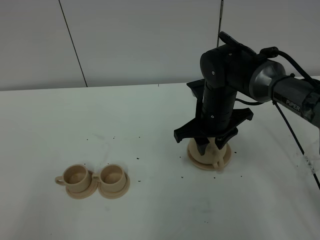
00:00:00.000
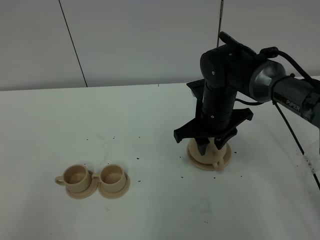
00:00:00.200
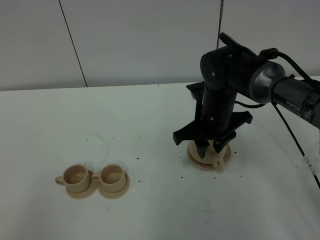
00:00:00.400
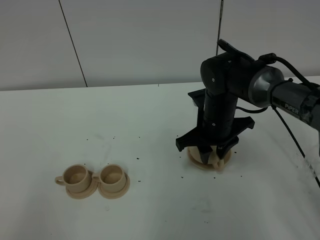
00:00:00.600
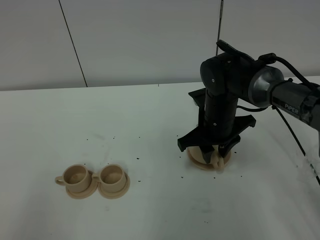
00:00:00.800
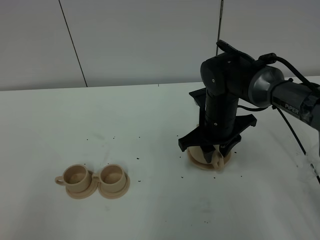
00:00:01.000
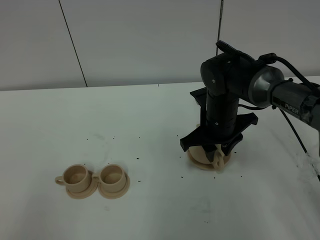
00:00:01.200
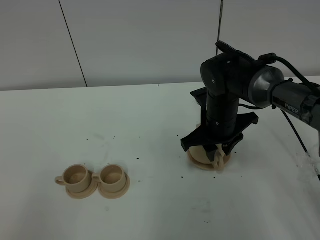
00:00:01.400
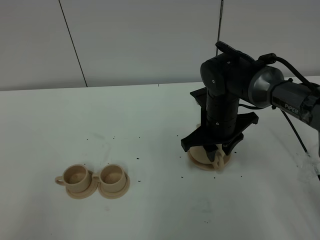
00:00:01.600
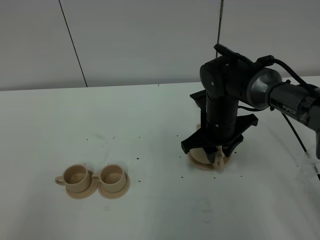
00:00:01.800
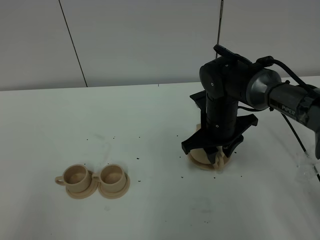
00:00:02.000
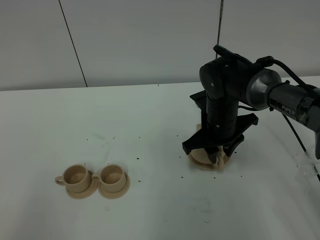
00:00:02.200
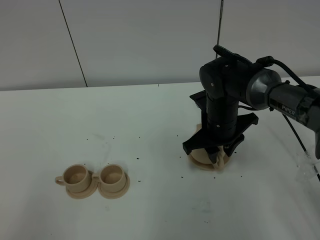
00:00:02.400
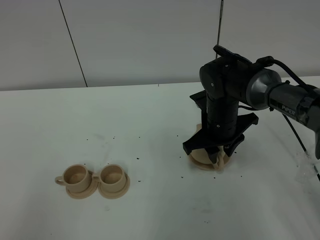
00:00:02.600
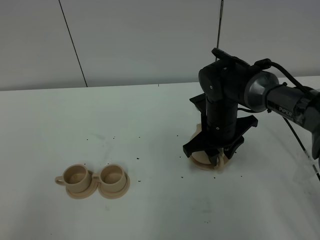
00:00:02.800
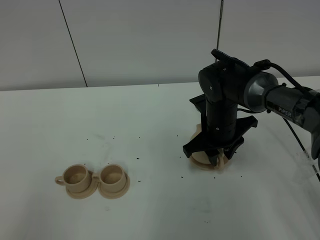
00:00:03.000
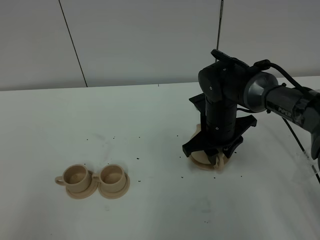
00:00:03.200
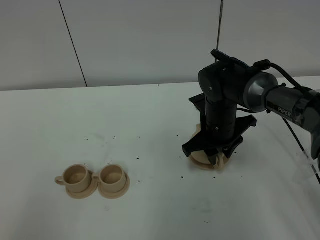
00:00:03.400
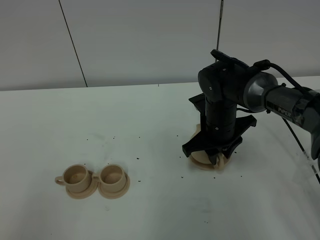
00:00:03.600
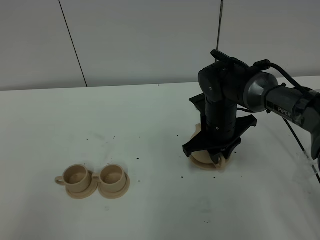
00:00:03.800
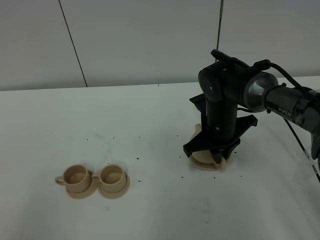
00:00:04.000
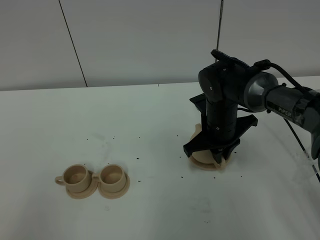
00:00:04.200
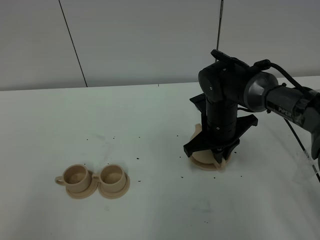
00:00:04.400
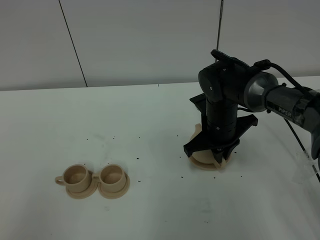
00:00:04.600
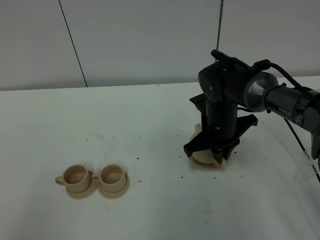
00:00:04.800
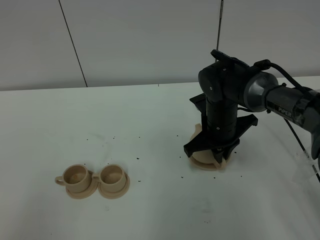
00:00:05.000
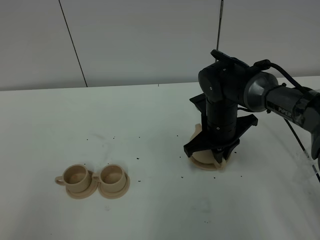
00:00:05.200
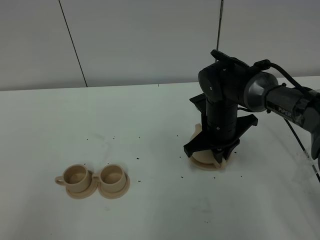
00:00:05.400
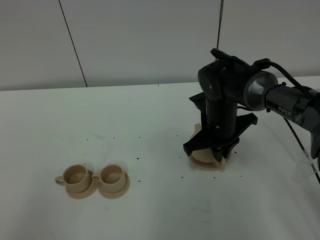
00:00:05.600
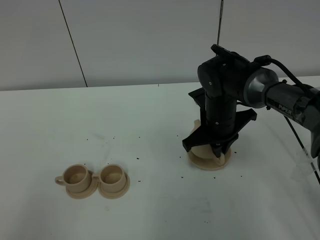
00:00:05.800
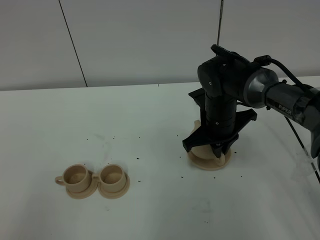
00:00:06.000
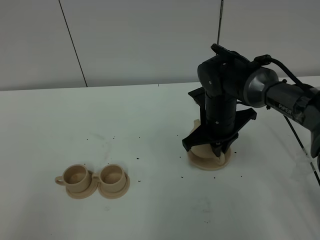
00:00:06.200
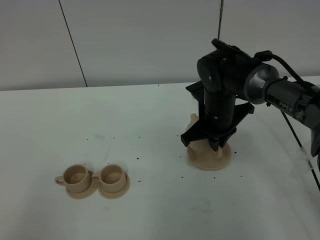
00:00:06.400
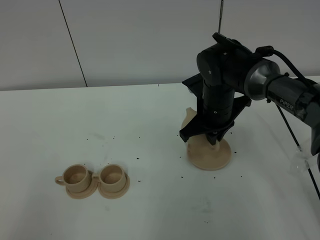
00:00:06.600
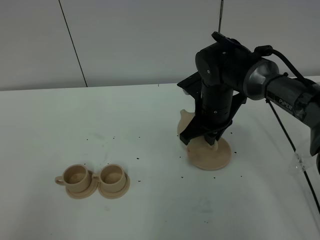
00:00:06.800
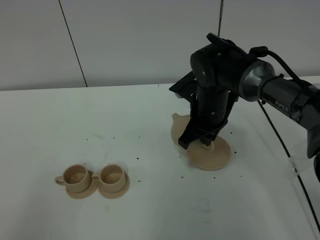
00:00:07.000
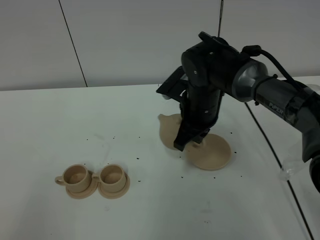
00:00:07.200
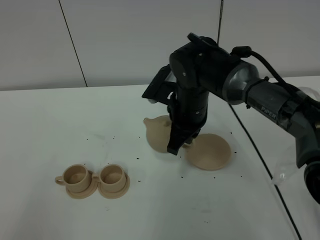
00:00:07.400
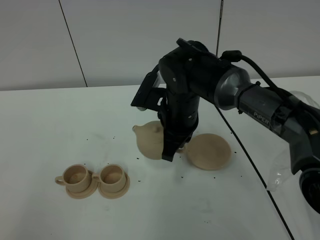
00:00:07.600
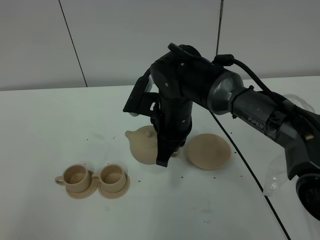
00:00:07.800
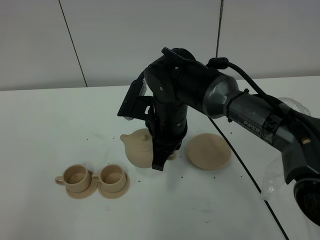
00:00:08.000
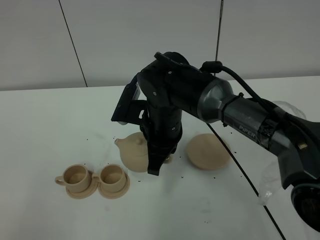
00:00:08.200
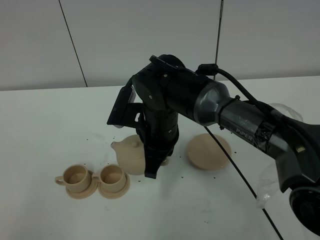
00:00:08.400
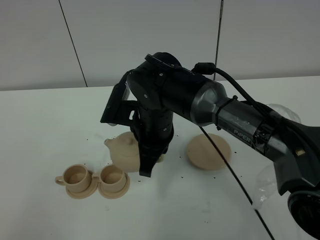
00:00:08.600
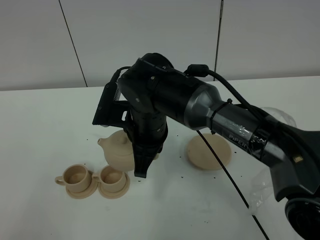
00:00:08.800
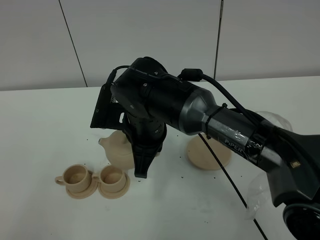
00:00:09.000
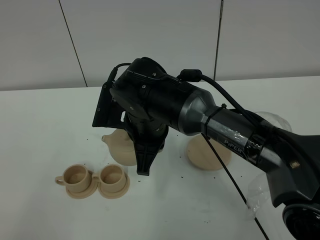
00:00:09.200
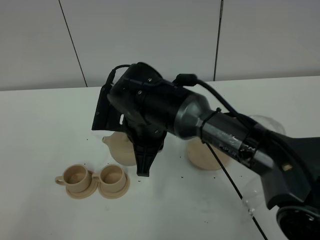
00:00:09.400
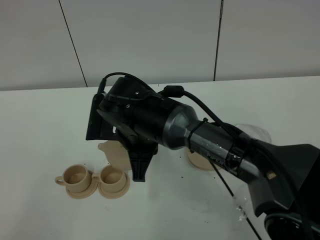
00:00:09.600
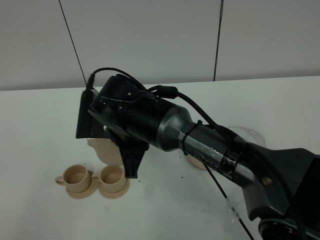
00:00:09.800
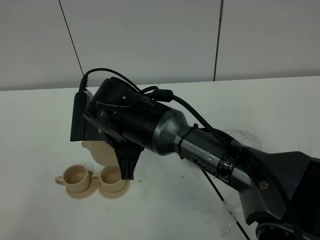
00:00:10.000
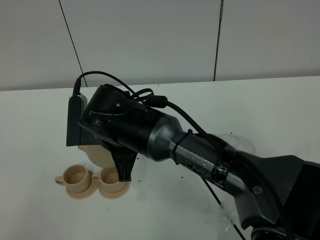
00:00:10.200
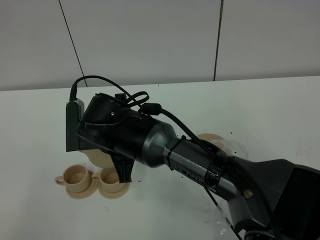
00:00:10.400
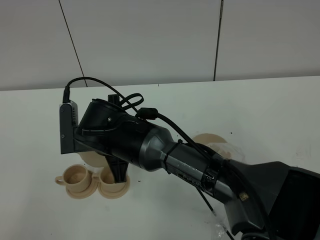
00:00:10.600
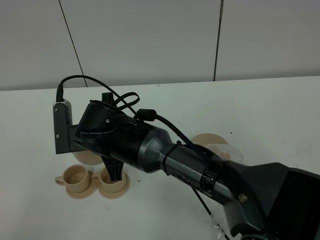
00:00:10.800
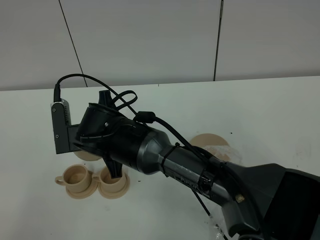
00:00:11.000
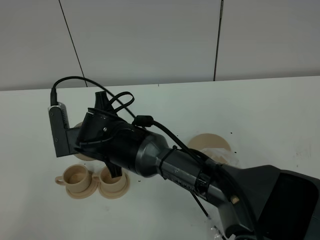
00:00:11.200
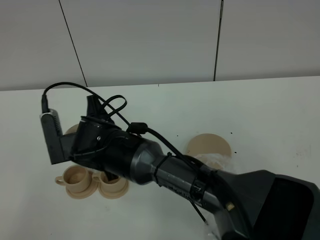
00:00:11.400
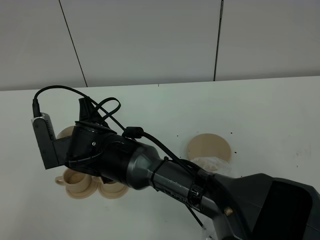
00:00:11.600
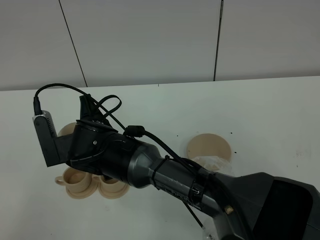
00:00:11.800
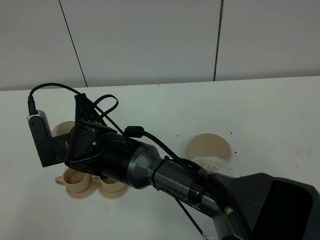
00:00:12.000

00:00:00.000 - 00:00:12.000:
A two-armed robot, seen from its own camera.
Task of the whole recording: grasp the brown teapot and pour the tea into the two brown teacups one by one, put the brown teapot back in its original place.
Step, 00:00:00.000 - 00:00:06.200: Pick up the teapot with the right gripper.
00:00:00.000 - 00:00:03.000: The grippers make only small movements.
00:00:03.000 - 00:00:04.400: The right gripper closes up.
00:00:04.400 - 00:00:06.000: Both grippers stay put.
00:00:06.000 - 00:00:07.600: The right gripper shifts some 10 cm to the left.
00:00:07.600 - 00:00:09.000: The right gripper moves to the left, about 5 cm.
00:00:09.000 - 00:00:10.400: The right gripper is displaced to the left by about 5 cm.

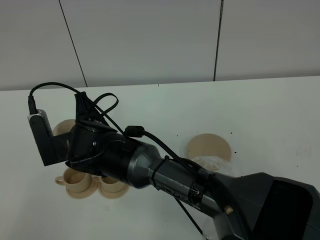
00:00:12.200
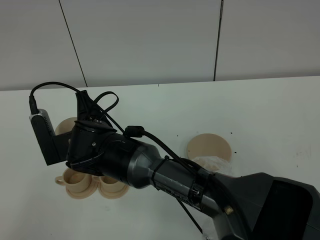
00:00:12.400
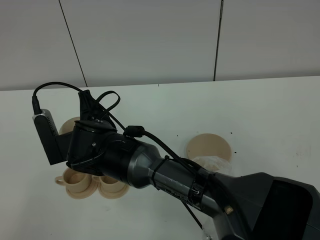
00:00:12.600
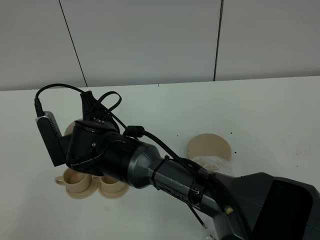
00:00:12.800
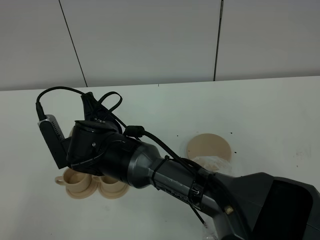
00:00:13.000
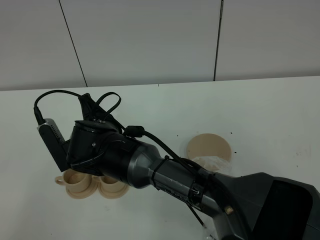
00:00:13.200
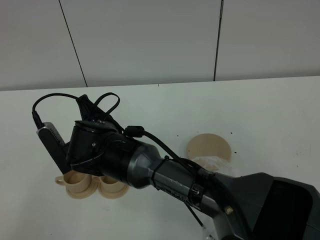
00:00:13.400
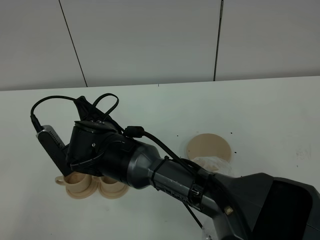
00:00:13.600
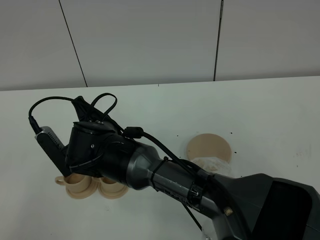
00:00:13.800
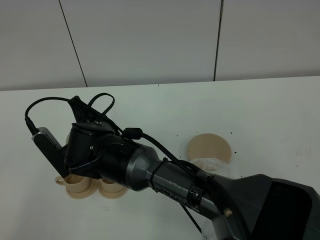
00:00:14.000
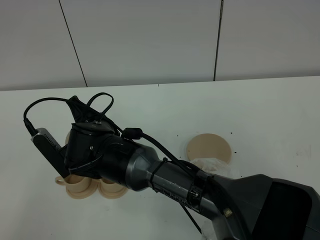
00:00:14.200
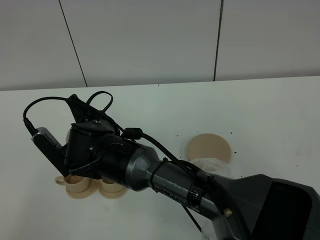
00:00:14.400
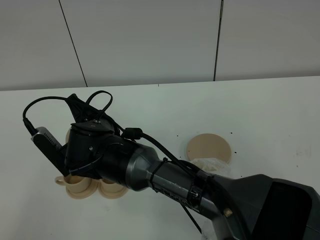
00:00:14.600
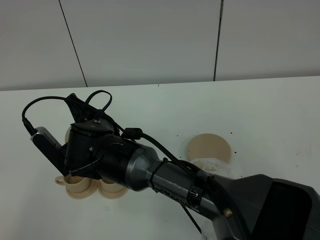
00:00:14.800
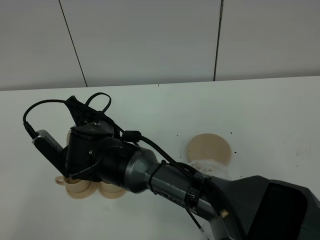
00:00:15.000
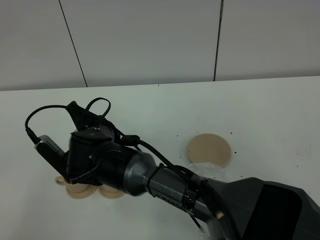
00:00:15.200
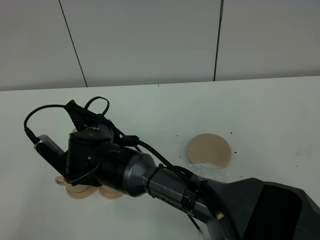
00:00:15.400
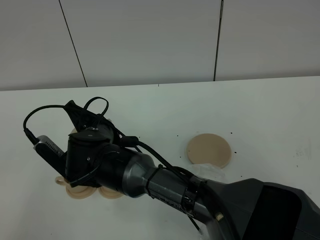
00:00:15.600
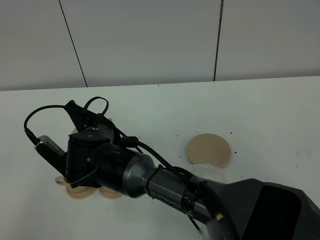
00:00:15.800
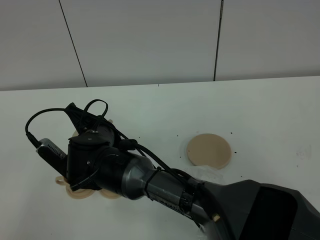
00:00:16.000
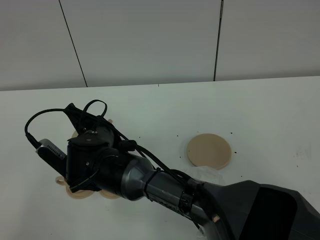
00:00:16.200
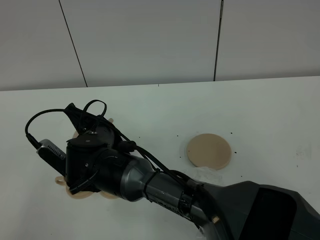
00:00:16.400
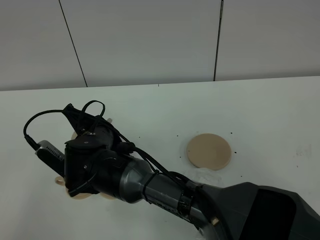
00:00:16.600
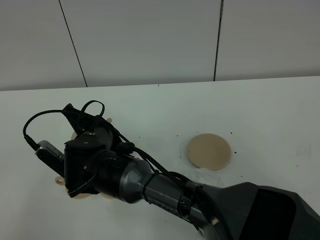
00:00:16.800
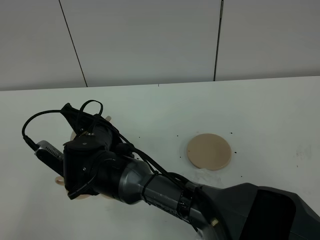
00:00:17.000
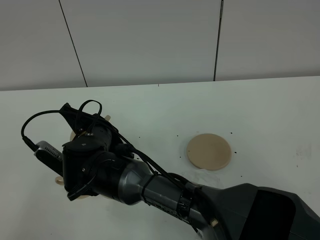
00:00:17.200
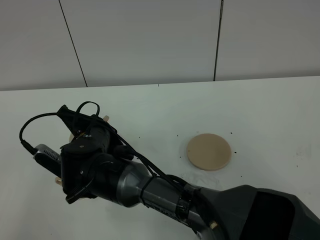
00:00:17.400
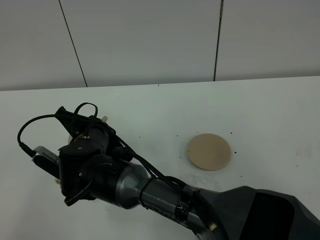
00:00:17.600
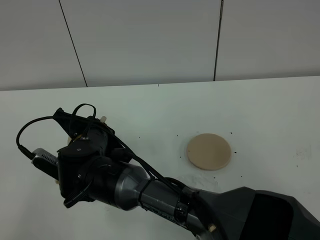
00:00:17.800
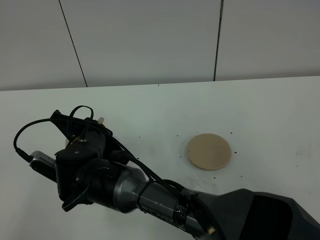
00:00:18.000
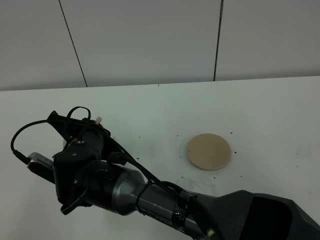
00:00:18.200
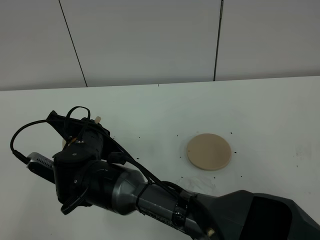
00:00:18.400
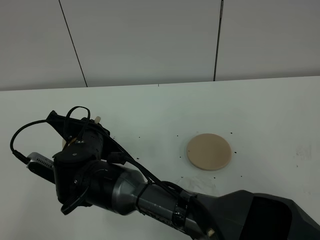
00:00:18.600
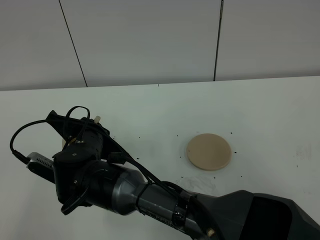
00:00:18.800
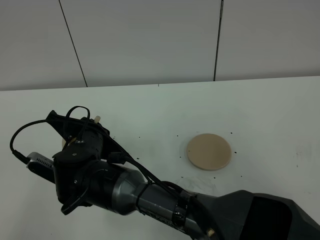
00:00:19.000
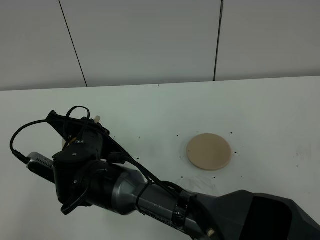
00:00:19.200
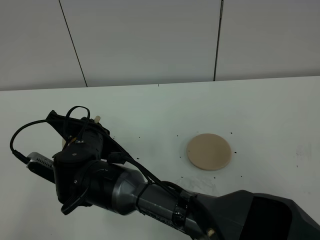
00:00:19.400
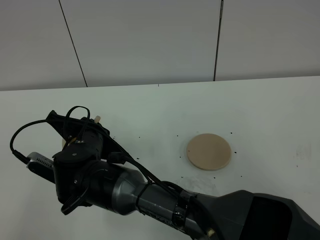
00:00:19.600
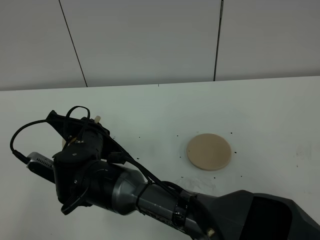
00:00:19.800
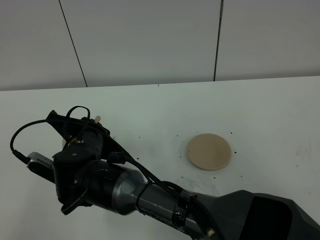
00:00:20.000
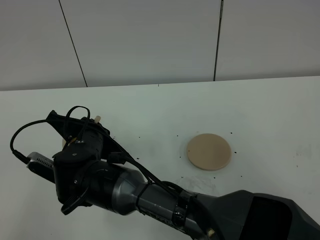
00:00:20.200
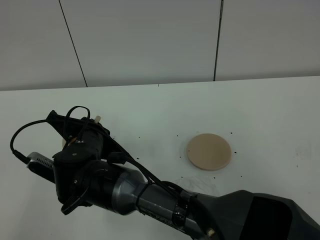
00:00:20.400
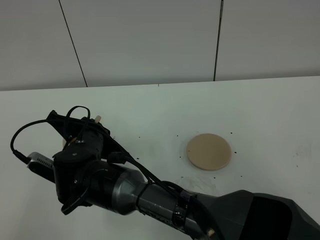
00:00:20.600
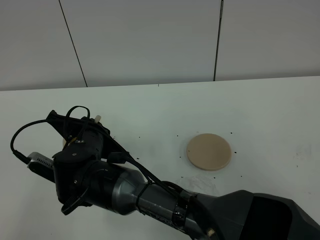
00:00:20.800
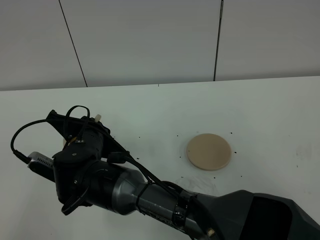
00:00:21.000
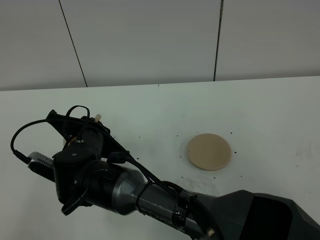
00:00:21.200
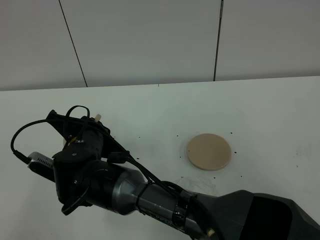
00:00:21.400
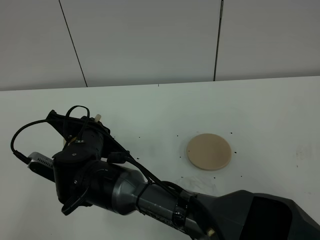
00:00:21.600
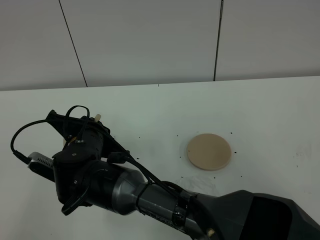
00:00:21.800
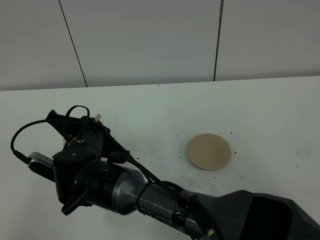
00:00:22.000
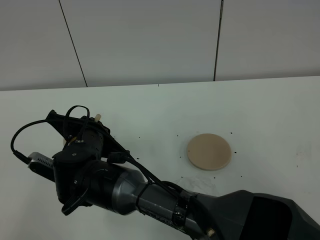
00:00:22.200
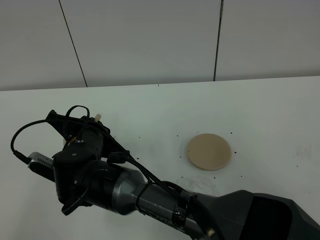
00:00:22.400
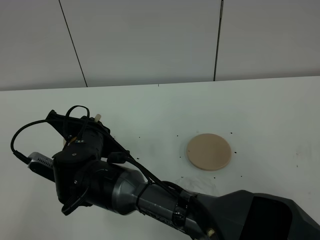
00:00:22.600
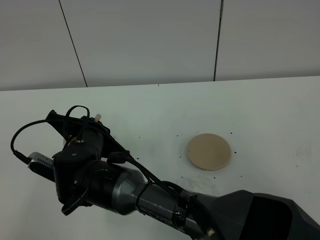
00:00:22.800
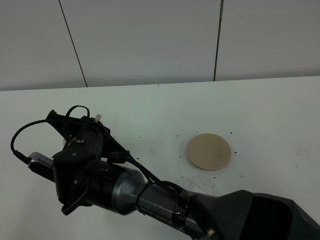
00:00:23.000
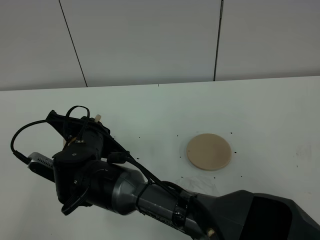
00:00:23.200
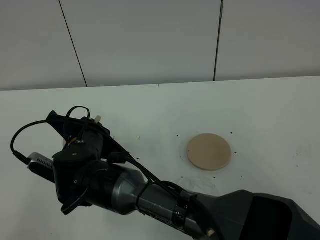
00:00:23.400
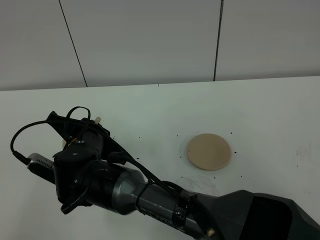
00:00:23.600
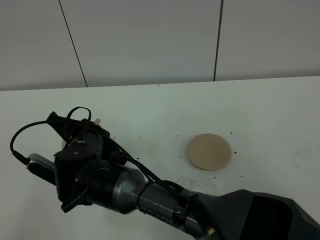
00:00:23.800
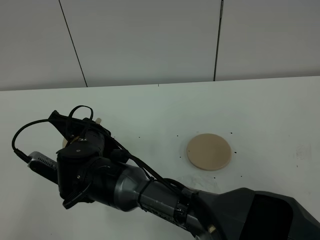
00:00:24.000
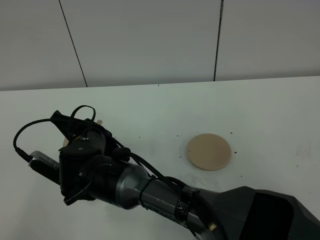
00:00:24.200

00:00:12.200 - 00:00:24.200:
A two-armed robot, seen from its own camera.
Task of the whole recording: grasp the brown teapot and pour the tea into the two brown teacups one by one, put the brown teapot back in its original place.
00:00:13.800 - 00:00:16.600: There are only small adjustments of the grippers.
00:00:16.600 - 00:00:18.200: The grippers stay close to where they were, moving slightly.
00:00:18.200 - 00:00:22.600: Both grippers stay put.
00:00:22.600 - 00:00:24.200: The grippers stay close to where they were, moving slightly.
